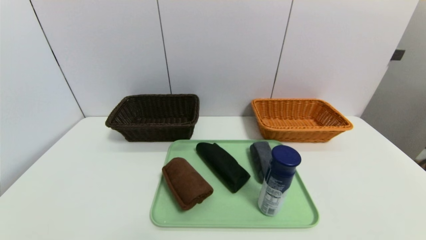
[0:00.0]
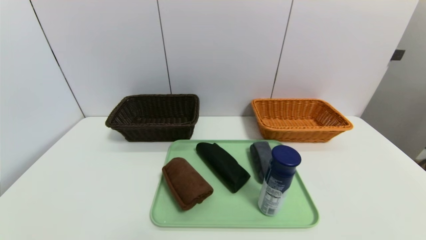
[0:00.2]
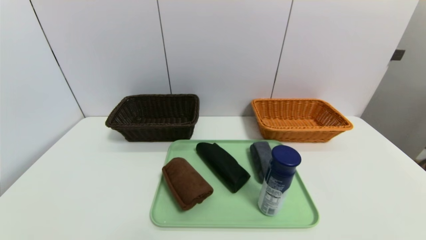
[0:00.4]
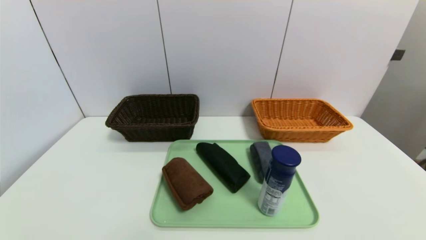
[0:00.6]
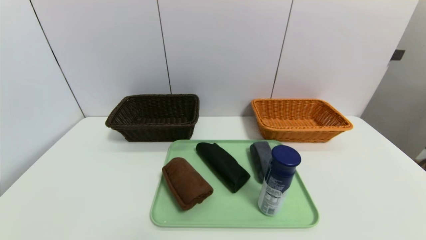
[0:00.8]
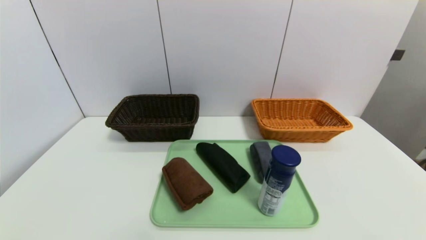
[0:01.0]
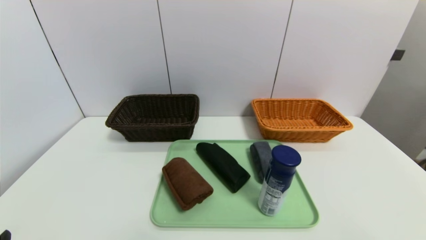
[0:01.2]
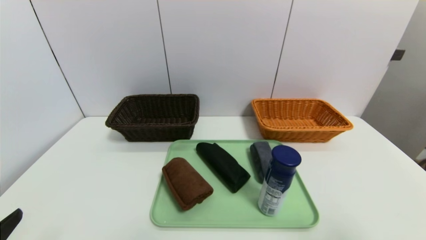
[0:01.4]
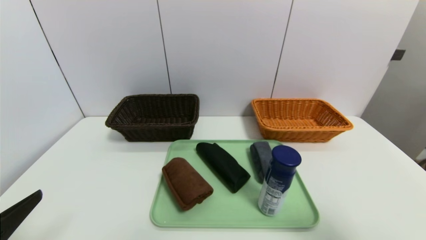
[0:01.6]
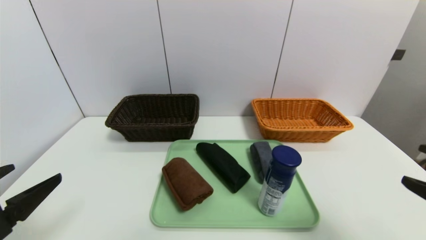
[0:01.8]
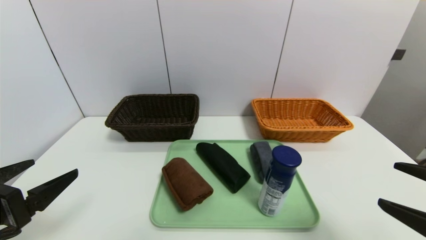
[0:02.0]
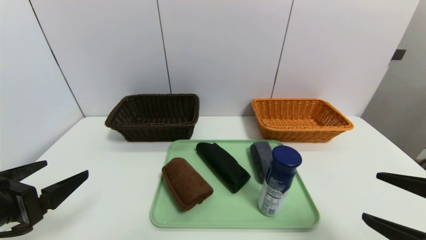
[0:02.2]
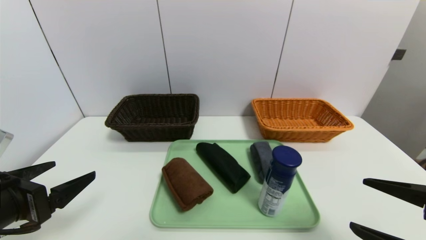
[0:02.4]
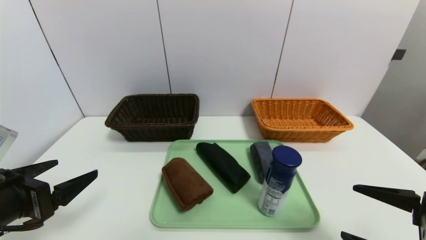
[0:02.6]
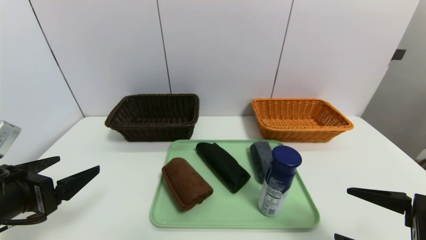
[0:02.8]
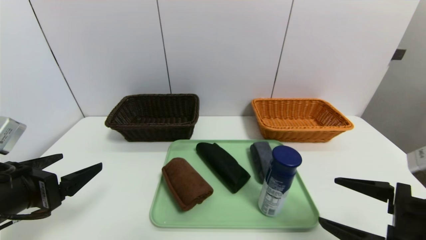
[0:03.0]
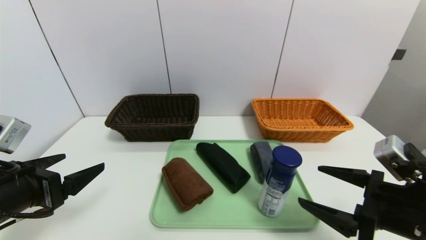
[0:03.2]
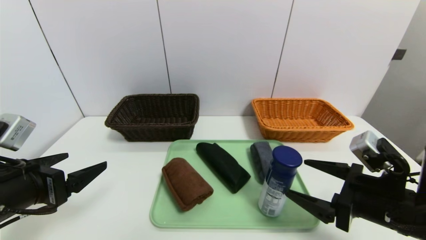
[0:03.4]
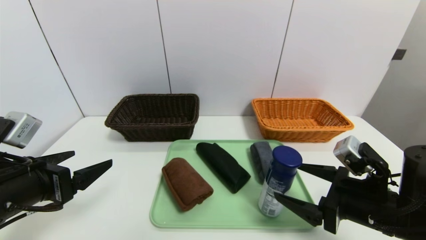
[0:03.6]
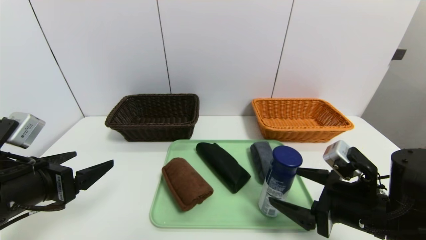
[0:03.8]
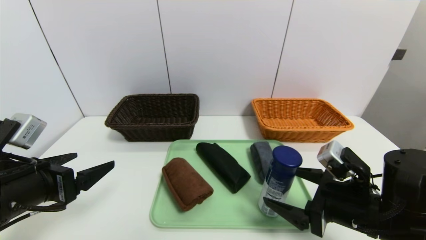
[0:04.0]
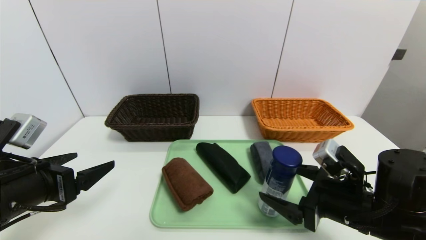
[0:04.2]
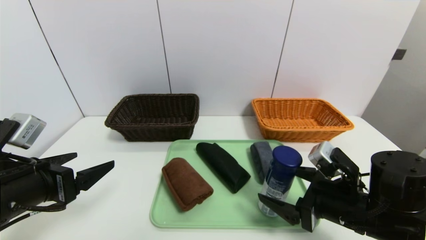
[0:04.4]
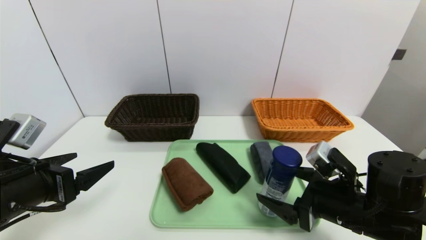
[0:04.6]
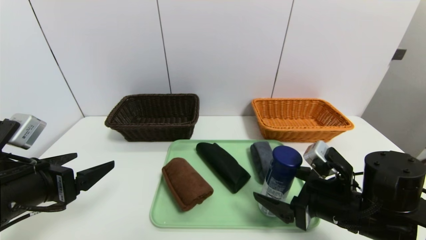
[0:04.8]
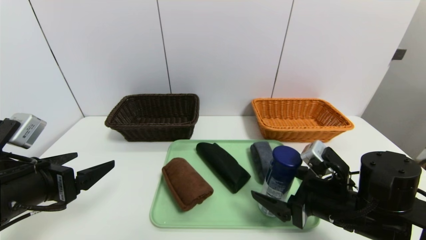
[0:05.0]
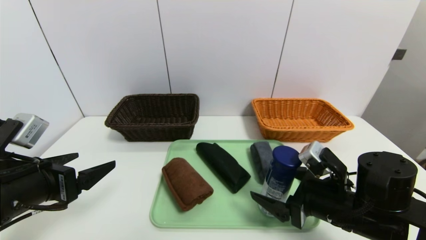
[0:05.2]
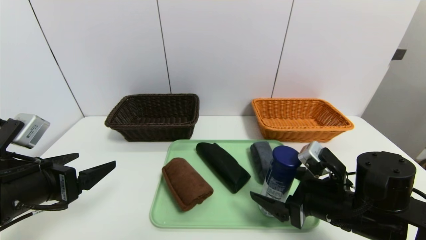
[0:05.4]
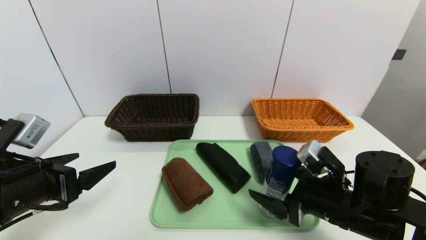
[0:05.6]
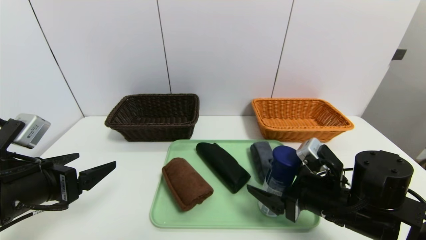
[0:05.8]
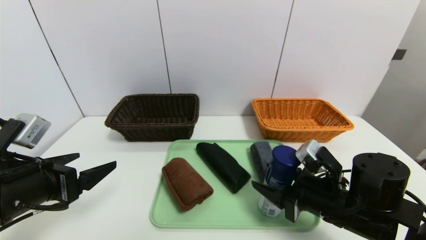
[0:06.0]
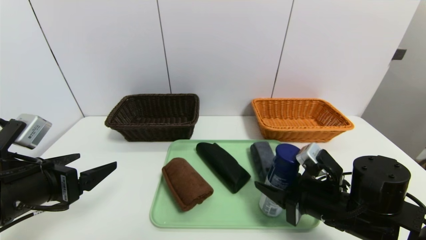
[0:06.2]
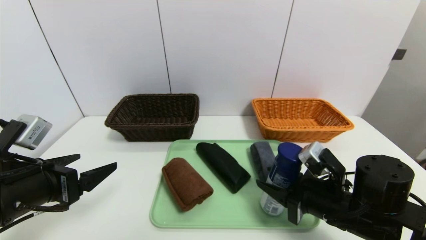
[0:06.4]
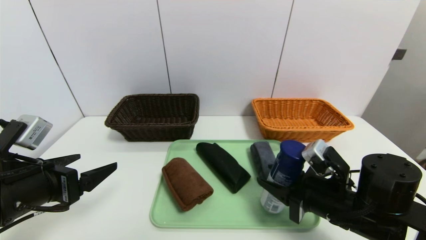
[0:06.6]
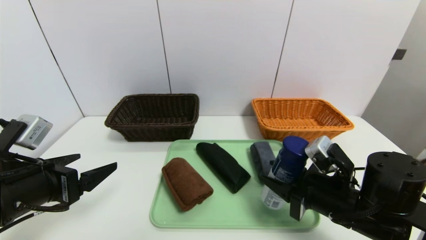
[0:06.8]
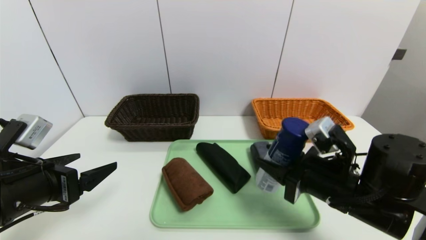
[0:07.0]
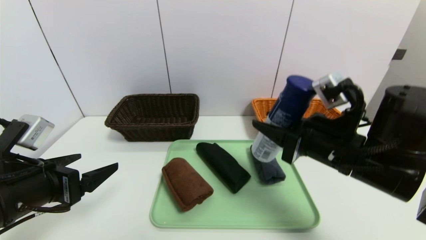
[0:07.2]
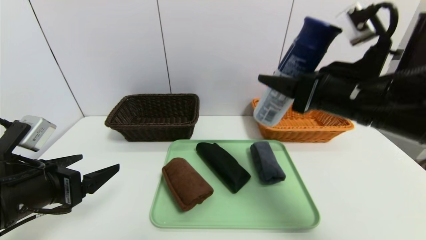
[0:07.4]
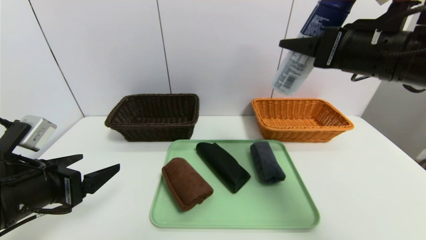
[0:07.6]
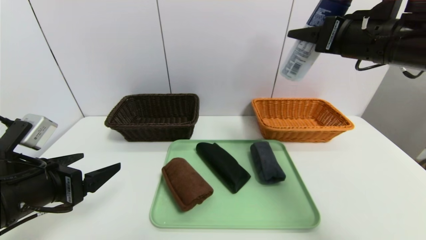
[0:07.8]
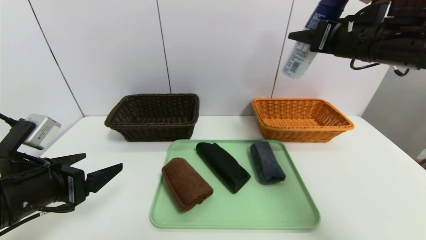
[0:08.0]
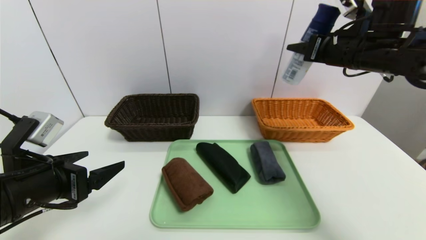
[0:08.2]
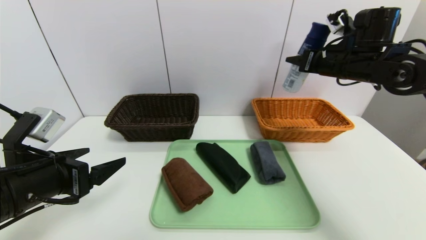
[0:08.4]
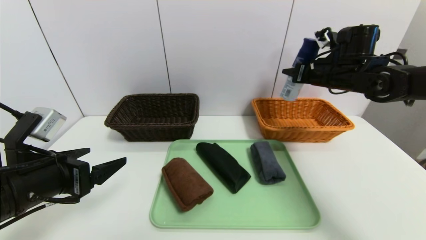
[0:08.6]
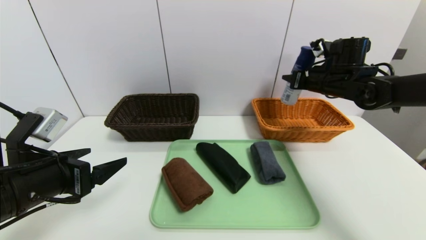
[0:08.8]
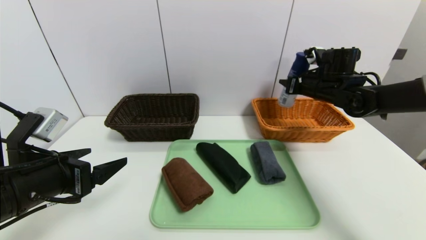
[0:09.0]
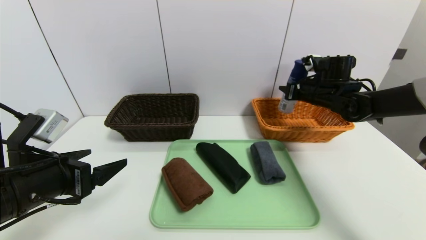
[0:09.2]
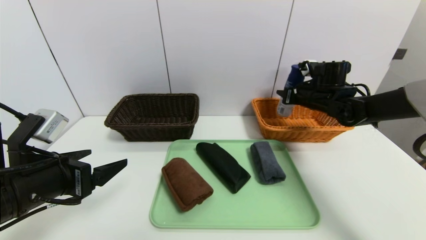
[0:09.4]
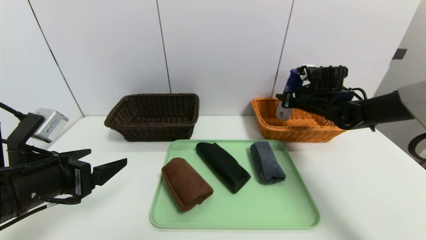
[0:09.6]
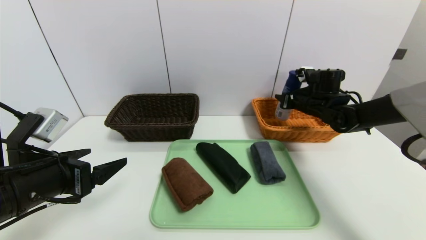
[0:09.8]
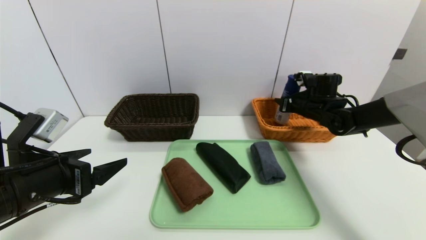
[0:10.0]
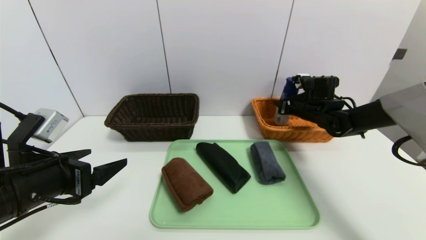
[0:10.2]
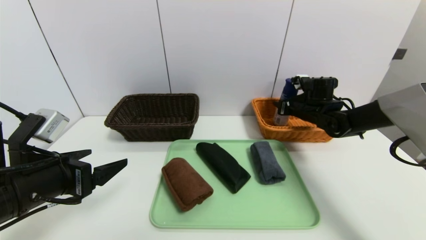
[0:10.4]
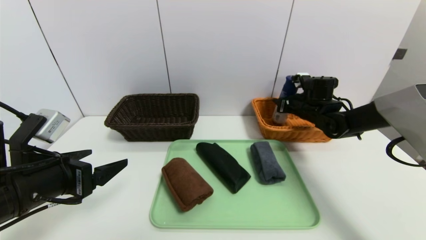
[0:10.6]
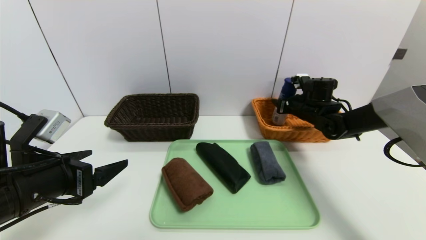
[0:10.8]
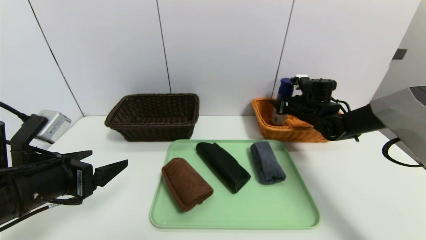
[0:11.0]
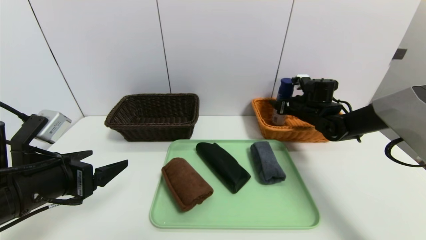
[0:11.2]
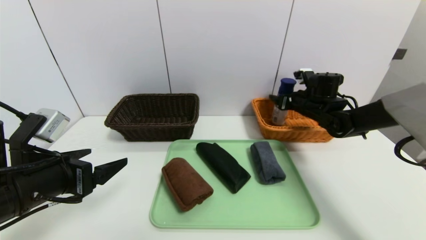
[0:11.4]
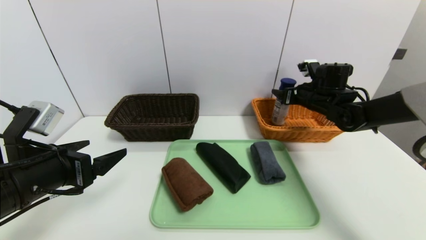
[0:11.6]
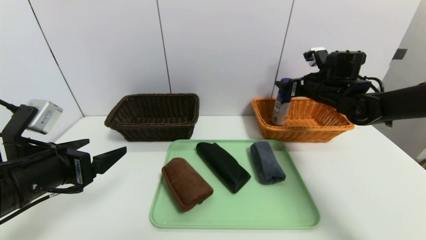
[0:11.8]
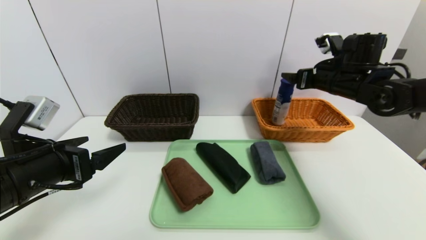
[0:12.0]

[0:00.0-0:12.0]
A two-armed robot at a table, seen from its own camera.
Task of the whole recording: place the food in the right basket with the right gripper, and place the non food items in the left basket with the left gripper.
Step, 0:00.0 to 0:11.6: Grasp the yogurt and put it in the right basket.
0:00.0 to 0:01.6: The two grippers go approximately 15 cm upward and forward.
0:01.6 to 0:03.0: The left gripper heads forward, covering some 10 cm. The right gripper travels downward, forward and to the left by about 10 cm.
0:03.0 to 0:04.4: The right gripper travels forward and to the left by some 10 cm.
0:04.4 to 0:06.0: The right gripper closes up.
0:06.0 to 0:07.6: The right gripper shifts roughly 25 cm upward.
0:07.6 to 0:09.0: The right gripper is displaced forward and downward by about 20 cm.
0:09.0 to 0:10.4: The right gripper is displaced downward by roughly 5 cm.
0:10.4 to 0:12.0: The right gripper goes approximately 15 cm upward and backward, and opens up.

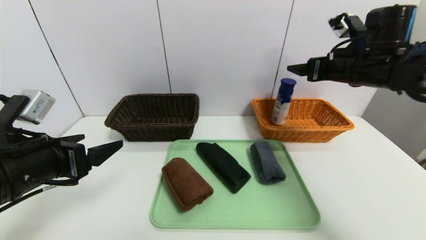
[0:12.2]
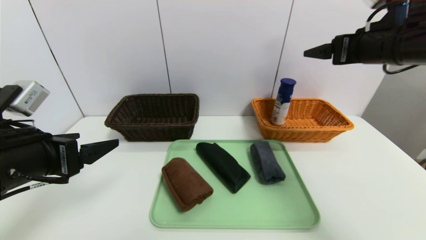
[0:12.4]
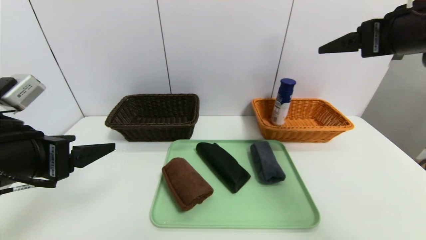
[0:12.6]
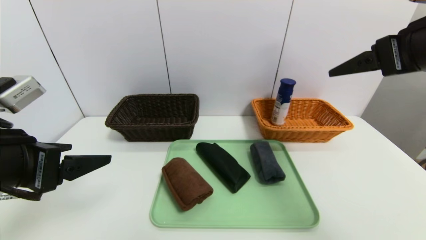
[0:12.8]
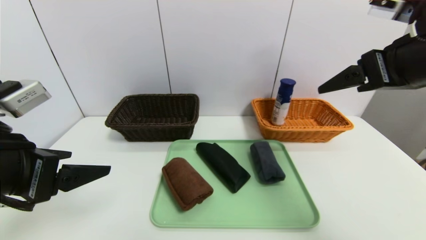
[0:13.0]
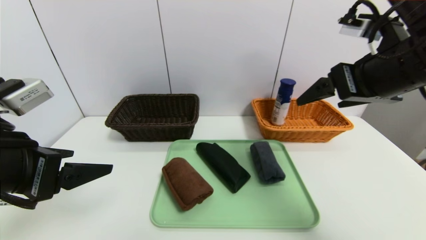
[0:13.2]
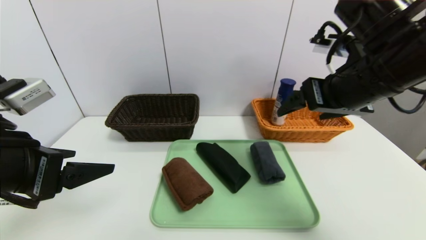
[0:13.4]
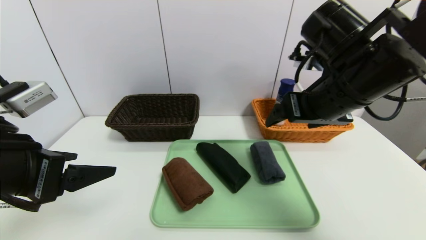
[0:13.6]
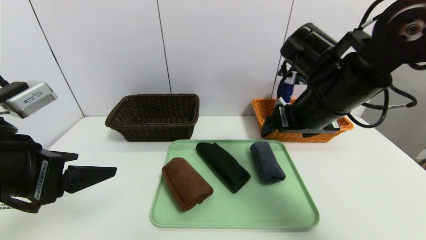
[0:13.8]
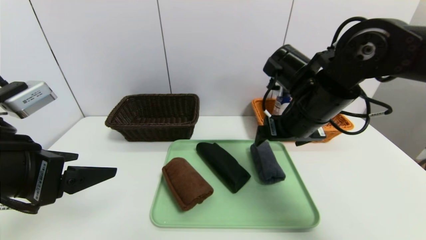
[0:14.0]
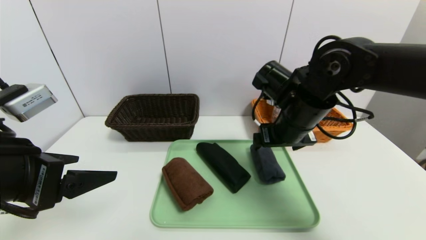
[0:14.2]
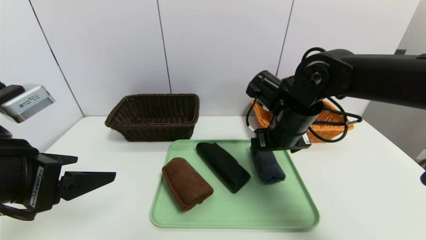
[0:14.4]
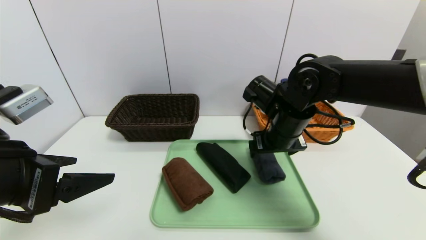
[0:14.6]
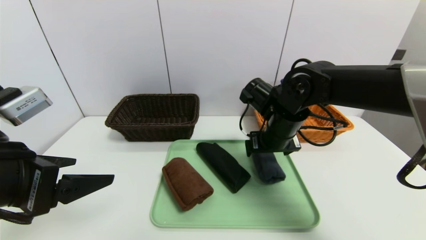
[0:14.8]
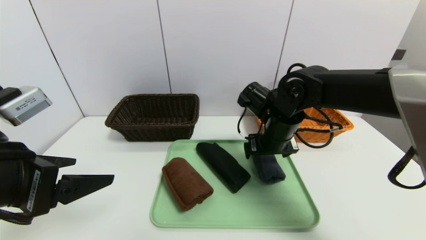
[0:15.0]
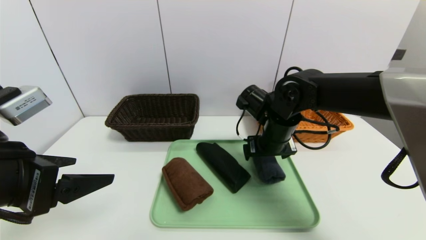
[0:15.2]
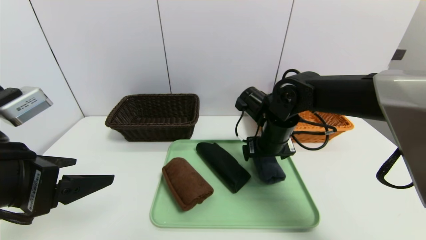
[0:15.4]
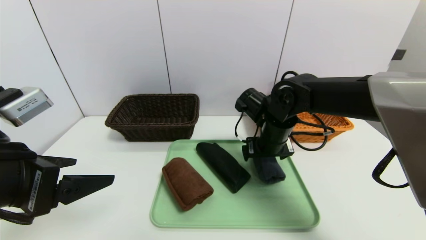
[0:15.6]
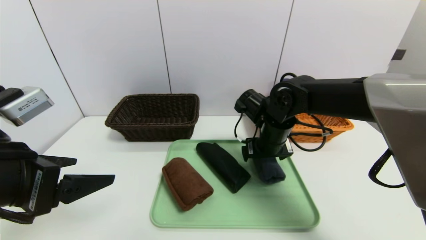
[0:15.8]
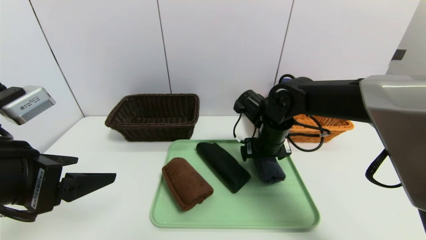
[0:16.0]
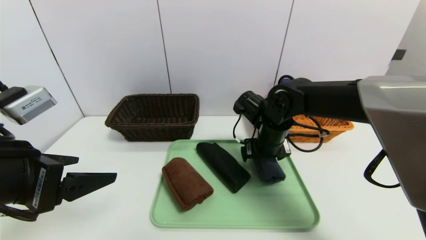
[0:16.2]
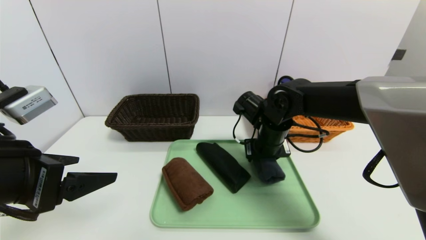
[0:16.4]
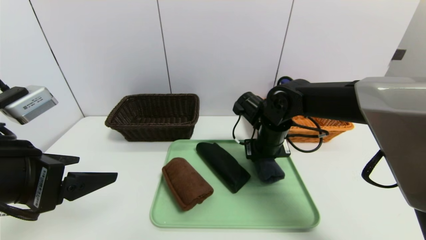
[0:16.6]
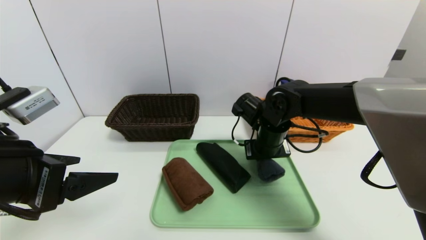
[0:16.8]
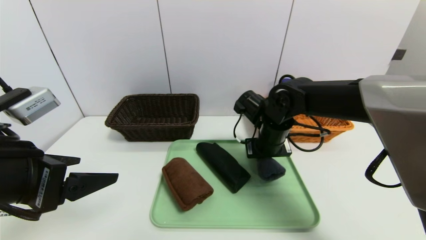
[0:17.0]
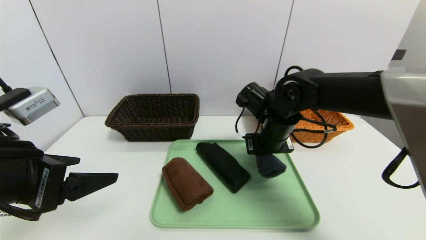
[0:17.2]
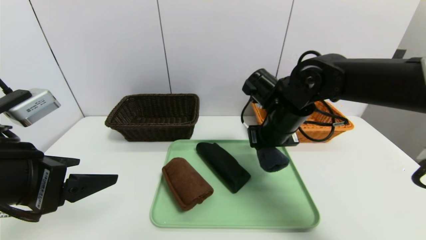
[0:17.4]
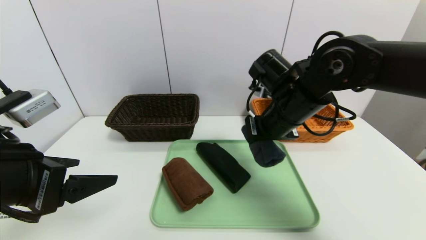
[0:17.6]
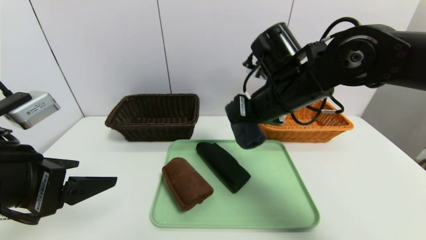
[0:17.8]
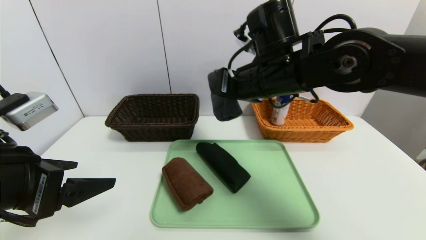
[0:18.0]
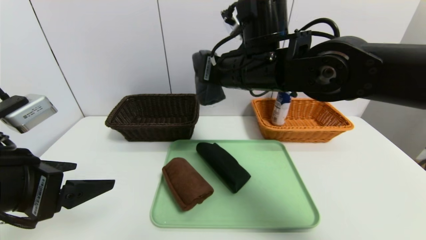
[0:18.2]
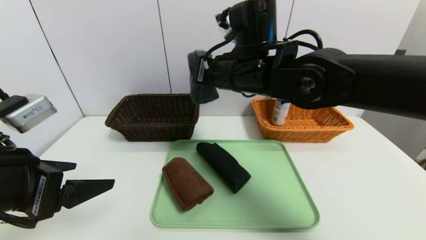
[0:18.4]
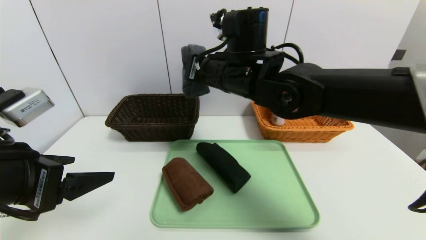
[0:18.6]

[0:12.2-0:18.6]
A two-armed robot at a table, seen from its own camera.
Task of the whole recording: place the food in the right basket with the right gripper, and place the non food items in the left basket with the left gripper.
0:12.2 to 0:13.8: The left gripper heads upward, covering some 5 cm, while the right gripper goes about 15 cm to the left and backward.
0:13.8 to 0:15.4: The right gripper shifts approximately 10 cm downward and forward.
0:15.4 to 0:17.0: The right gripper closes up.
0:17.0 to 0:18.6: The right gripper shifts about 15 cm upward and to the left.
